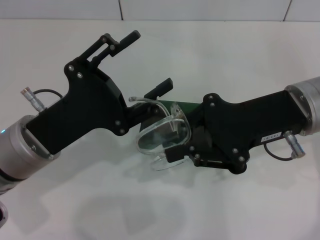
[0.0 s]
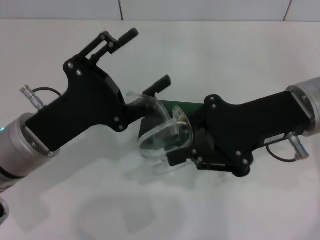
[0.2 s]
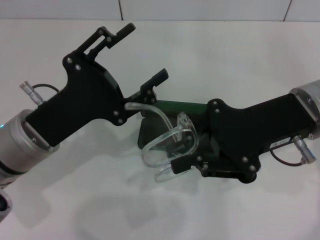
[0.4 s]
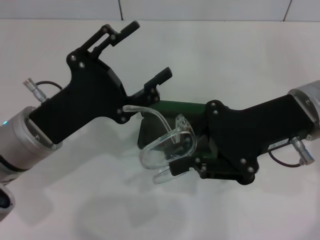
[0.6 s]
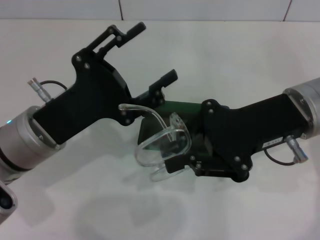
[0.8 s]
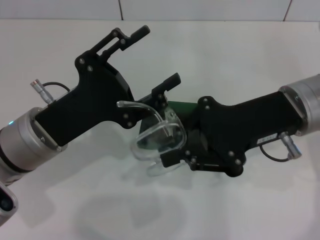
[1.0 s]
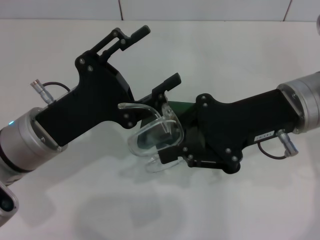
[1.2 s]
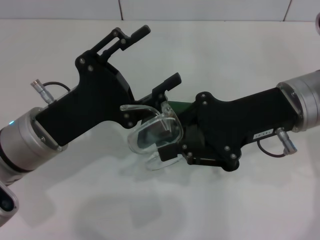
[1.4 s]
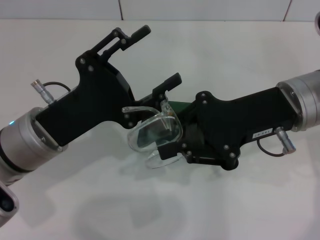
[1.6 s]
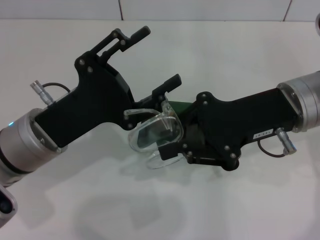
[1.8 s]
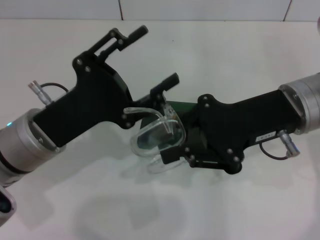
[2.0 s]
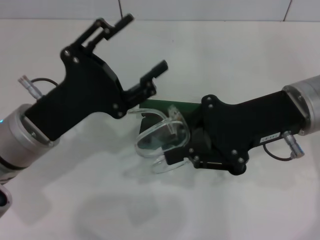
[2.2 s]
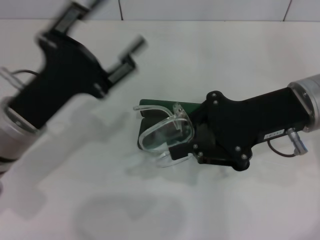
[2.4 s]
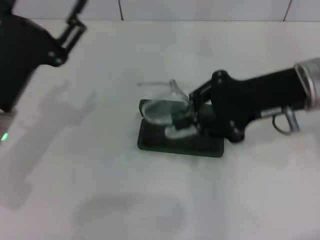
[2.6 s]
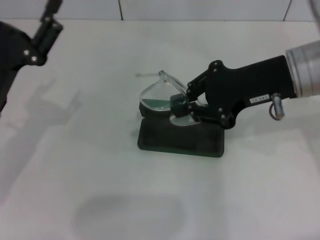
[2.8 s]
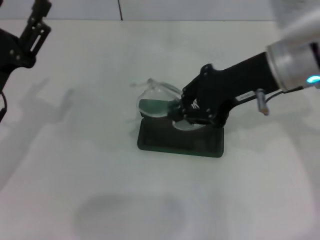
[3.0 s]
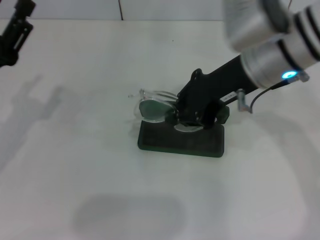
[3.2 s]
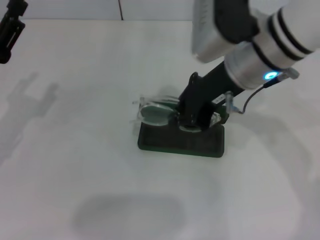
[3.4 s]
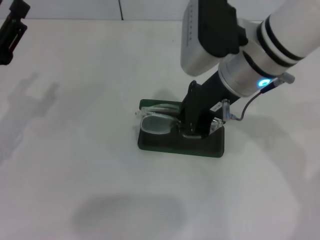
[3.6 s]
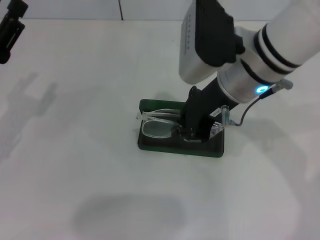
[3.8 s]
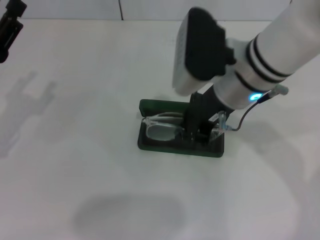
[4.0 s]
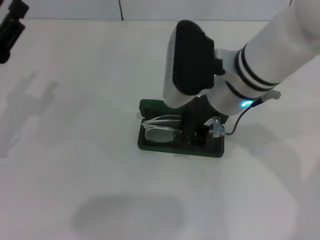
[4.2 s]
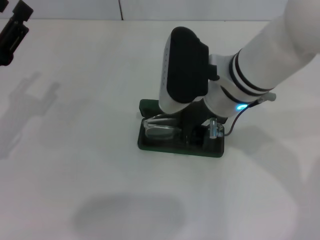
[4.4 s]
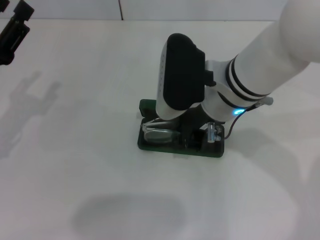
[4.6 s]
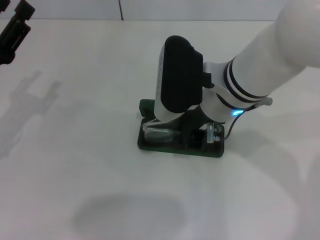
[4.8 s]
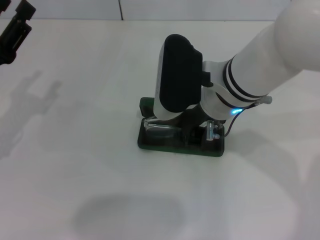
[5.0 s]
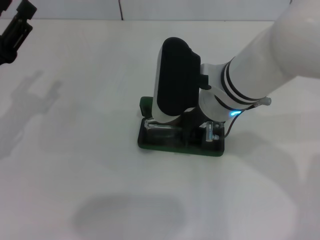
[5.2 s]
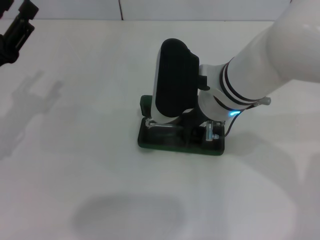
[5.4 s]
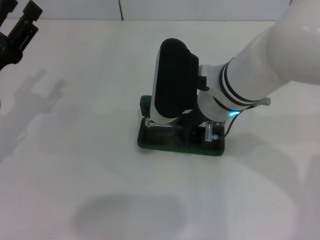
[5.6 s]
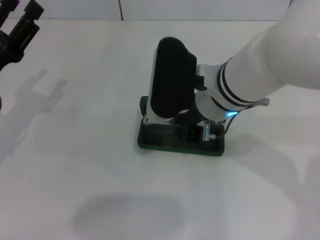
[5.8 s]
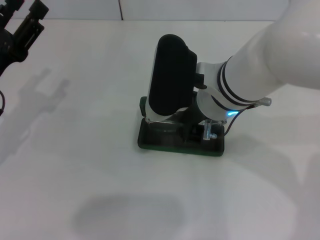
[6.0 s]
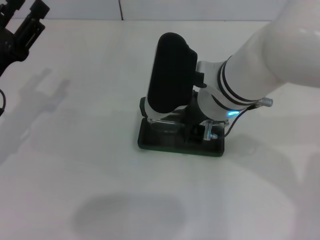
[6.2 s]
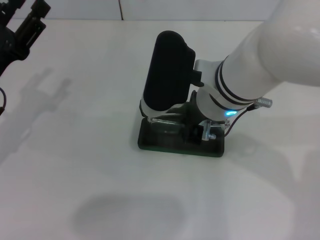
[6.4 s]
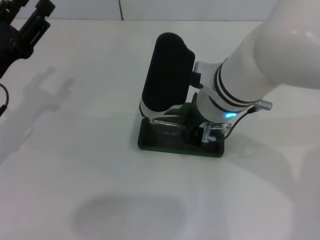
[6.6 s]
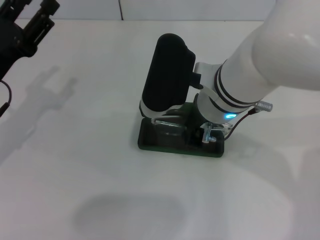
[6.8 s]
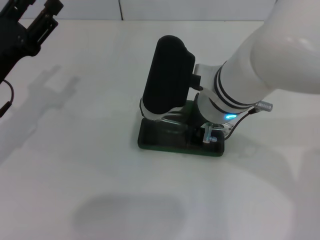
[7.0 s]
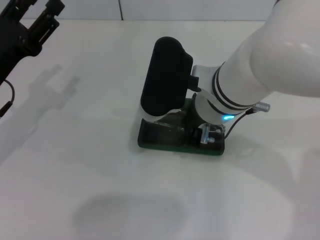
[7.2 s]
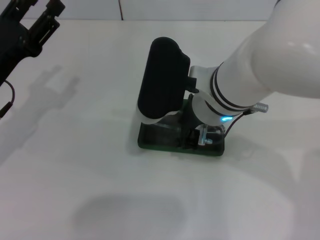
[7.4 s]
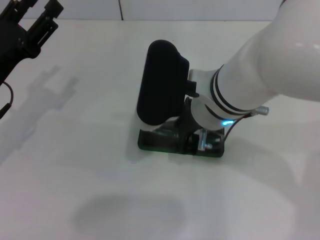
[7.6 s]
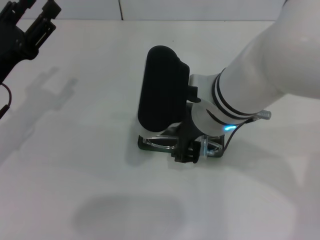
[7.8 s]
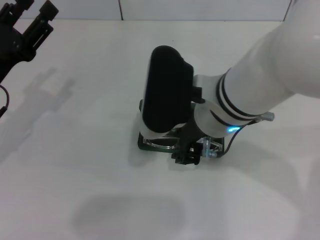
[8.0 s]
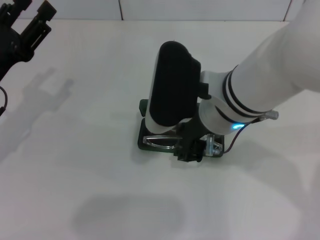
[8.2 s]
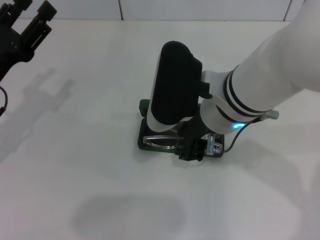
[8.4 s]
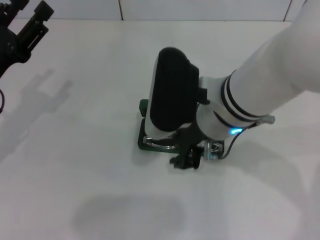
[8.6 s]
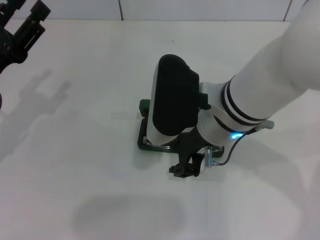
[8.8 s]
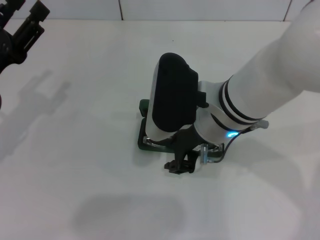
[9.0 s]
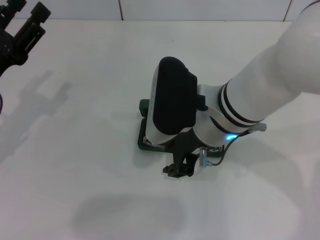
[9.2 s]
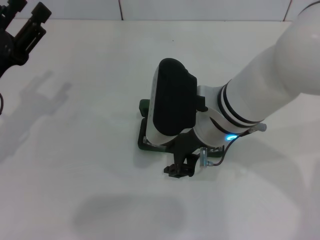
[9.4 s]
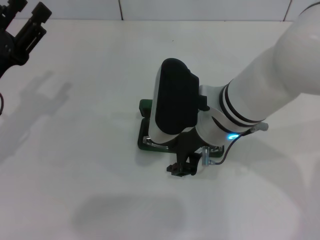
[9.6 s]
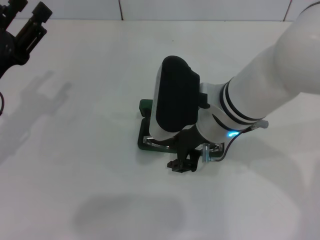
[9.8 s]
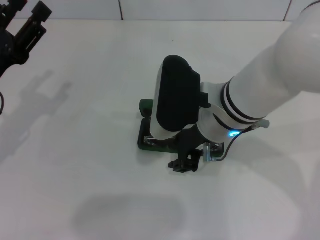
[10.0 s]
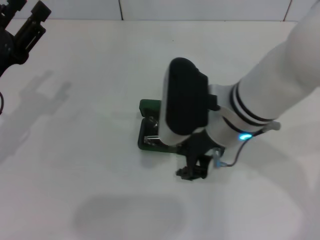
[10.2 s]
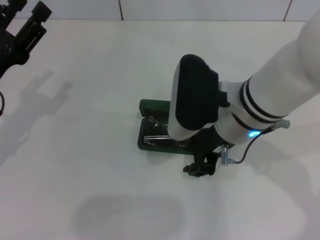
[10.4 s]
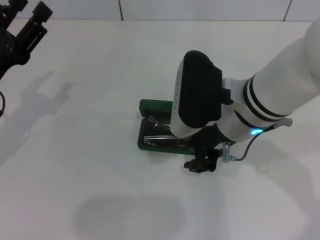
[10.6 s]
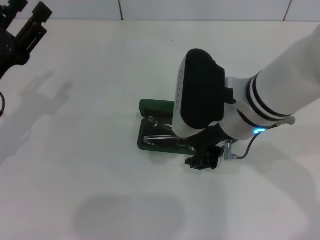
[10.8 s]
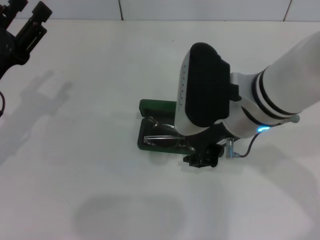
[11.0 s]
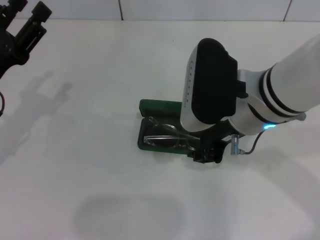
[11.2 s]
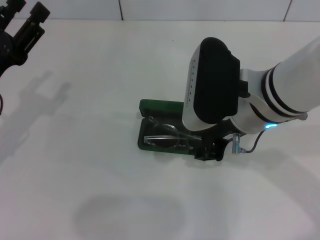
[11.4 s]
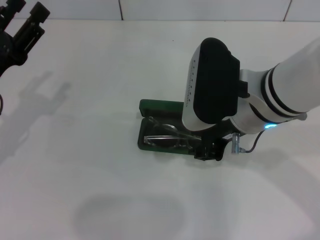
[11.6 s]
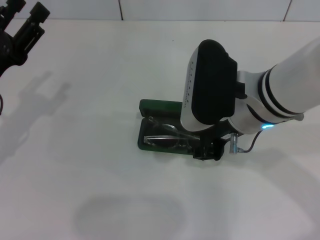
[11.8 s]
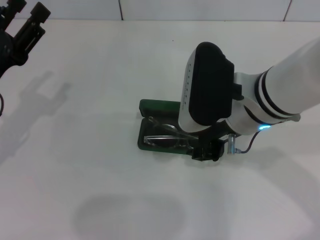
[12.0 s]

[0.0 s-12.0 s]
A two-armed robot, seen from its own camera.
Step, 2.0 to 10.0 s: Put the glasses into the case with your right hand.
0.0 to 1.6 s: Both grippers stay about where they are.
1.6 to 3.0 s: The left gripper travels to the left by roughly 10 cm. The right gripper shifts by about 5 cm.
3.0 to 4.4 s: The right gripper travels to the left by roughly 10 cm.
4.4 to 12.0 s: There are only small adjustments of the grippers.

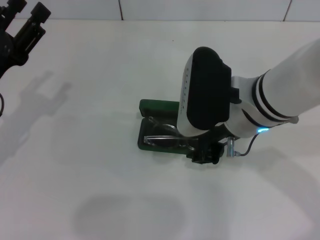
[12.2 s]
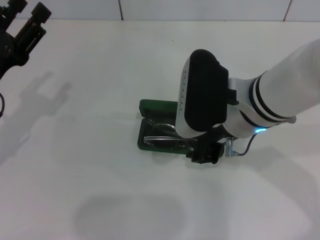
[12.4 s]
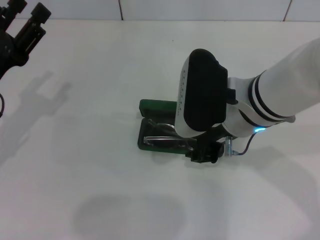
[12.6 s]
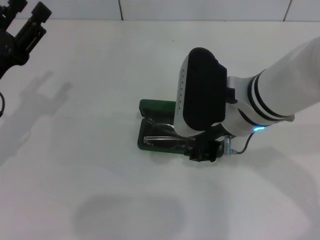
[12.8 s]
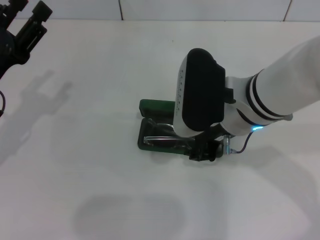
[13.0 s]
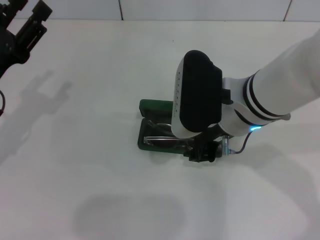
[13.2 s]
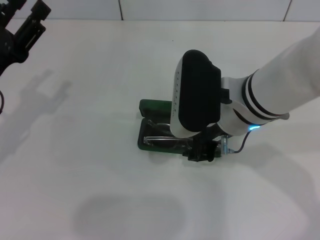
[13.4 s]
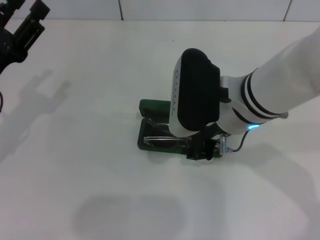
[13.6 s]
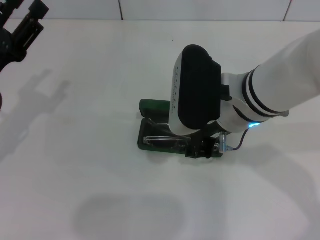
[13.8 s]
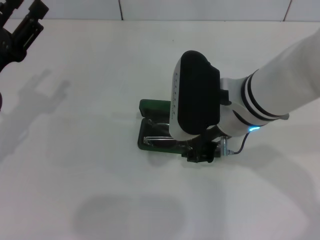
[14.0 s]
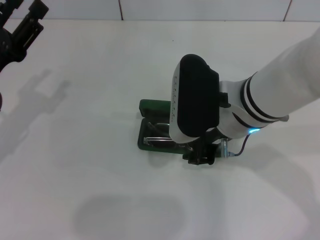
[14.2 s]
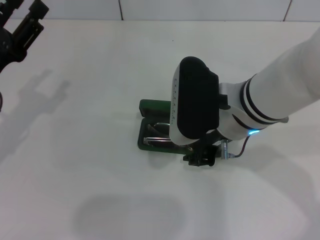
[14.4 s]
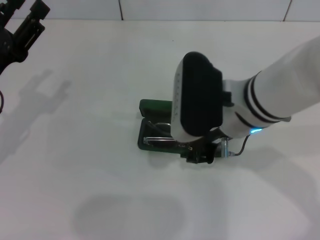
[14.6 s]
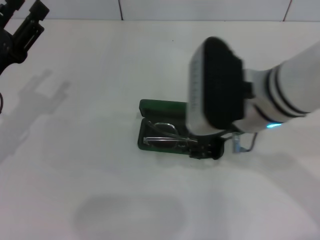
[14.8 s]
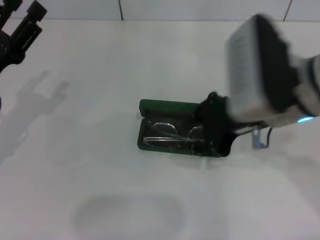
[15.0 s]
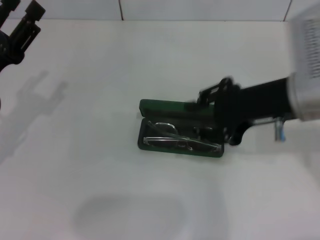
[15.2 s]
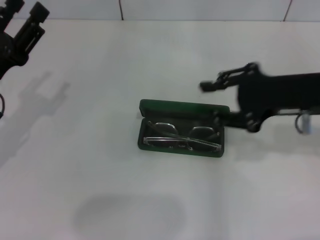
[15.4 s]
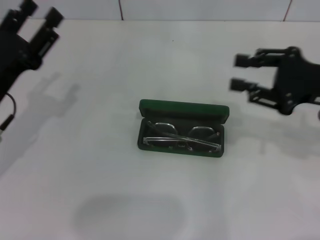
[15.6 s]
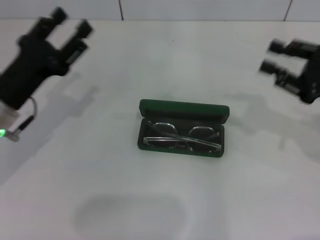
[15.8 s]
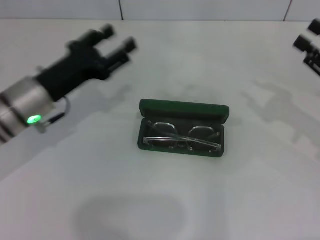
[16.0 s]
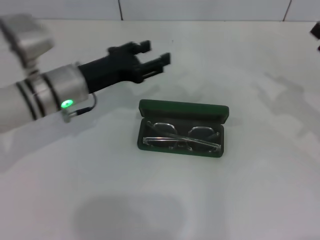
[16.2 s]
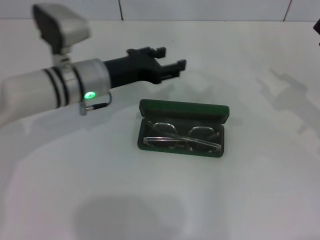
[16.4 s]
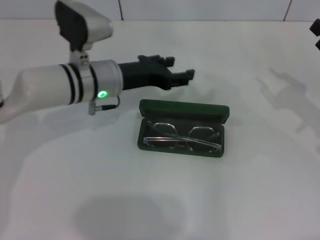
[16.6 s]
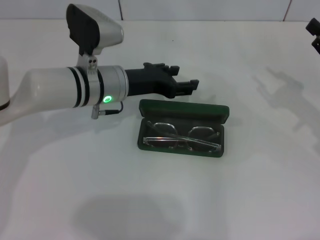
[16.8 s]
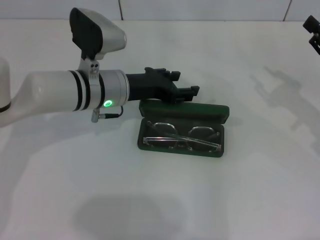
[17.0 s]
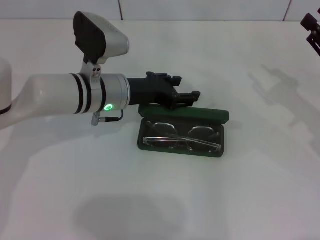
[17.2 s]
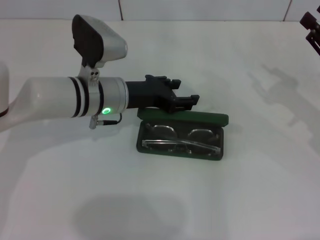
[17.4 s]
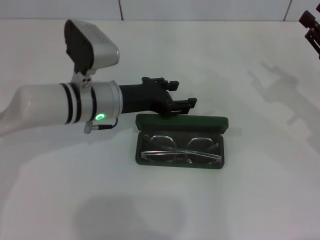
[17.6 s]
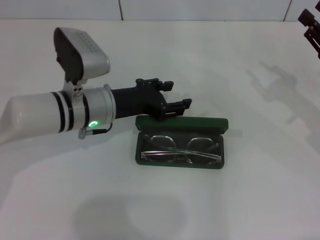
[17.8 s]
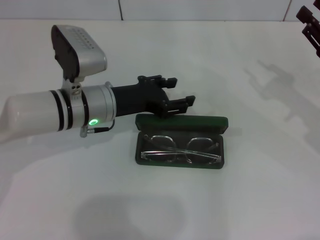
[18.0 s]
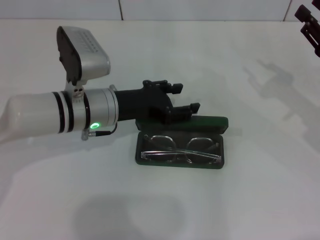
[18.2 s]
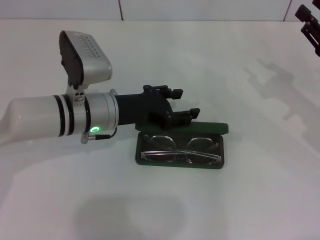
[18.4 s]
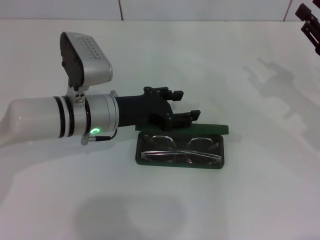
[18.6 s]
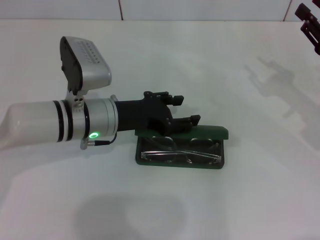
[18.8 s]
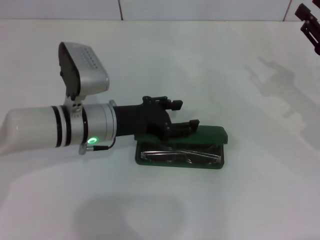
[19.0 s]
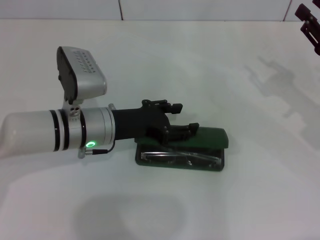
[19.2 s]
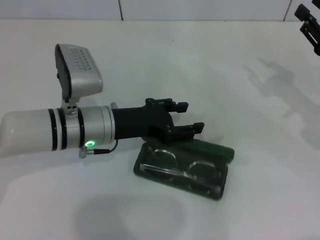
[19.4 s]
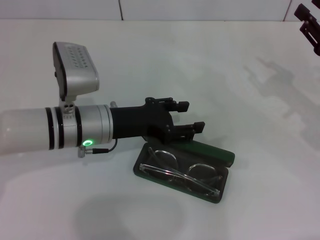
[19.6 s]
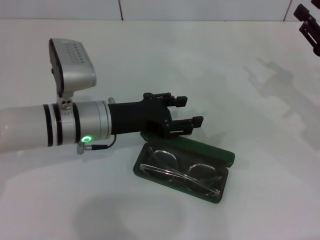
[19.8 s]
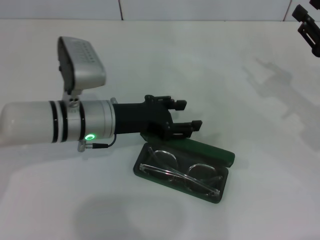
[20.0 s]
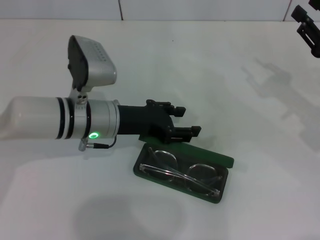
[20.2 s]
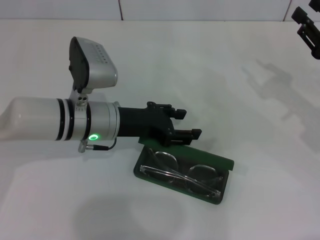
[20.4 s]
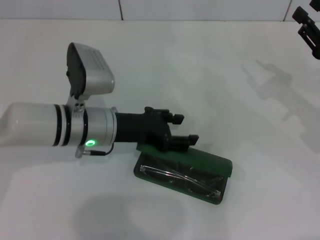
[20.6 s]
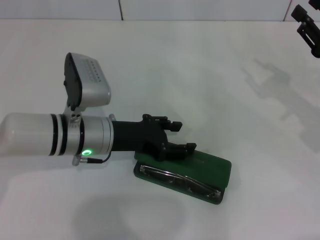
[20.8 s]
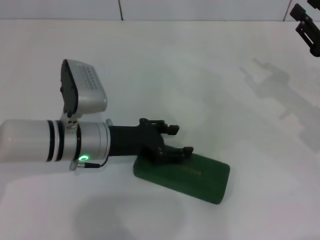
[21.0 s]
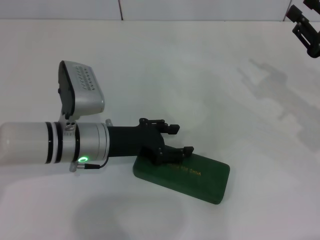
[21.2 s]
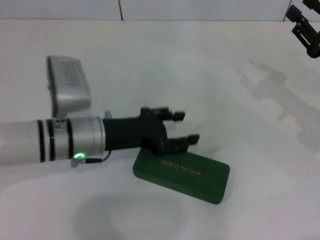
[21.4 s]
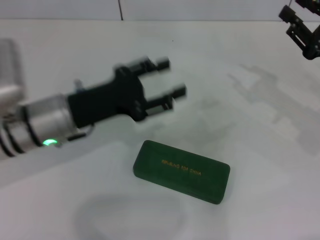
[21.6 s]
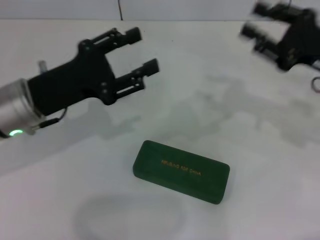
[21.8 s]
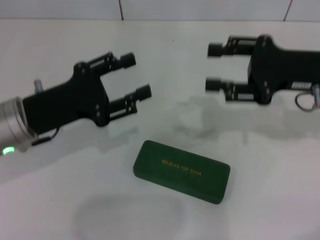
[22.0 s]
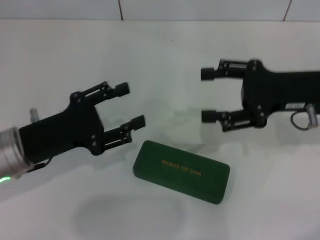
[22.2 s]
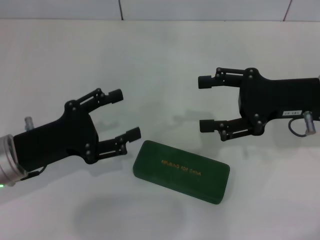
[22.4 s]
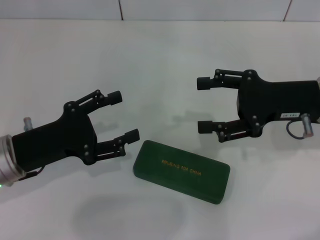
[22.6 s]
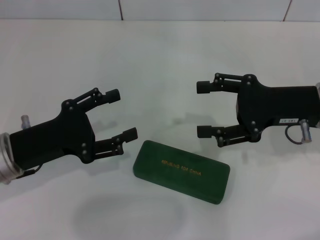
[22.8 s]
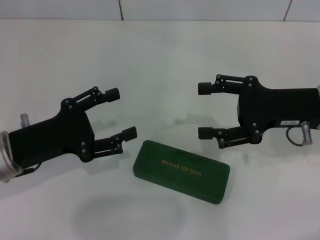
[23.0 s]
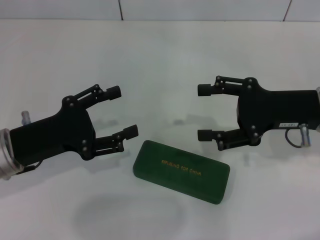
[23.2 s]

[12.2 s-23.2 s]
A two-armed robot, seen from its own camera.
Step, 12.2 to 21.0 s: Close the glasses case with your left hand.
12.2 to 13.8 s: Neither gripper changes place.
13.8 to 15.4 s: The right gripper travels to the right by some 15 cm.
15.4 to 17.0 s: The left gripper goes approximately 20 cm to the right and forward; the right gripper shifts approximately 15 cm to the right and downward.
17.0 to 20.0 s: The grippers stay close to where they were, moving slightly.
20.0 to 21.6 s: The left gripper changes place by roughly 5 cm.
21.6 to 23.2 s: Both grippers move to the left, roughly 5 cm. The right gripper opens its fingers.
